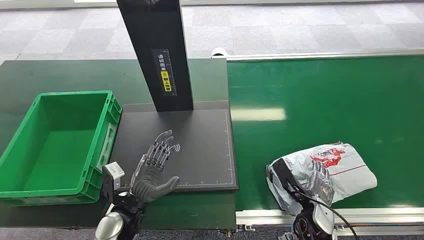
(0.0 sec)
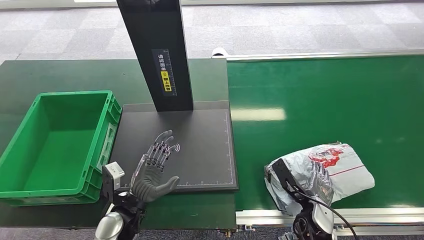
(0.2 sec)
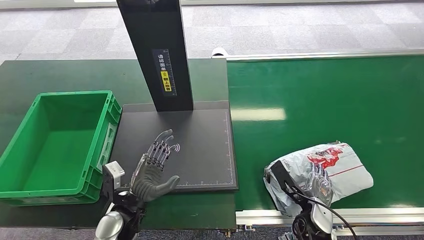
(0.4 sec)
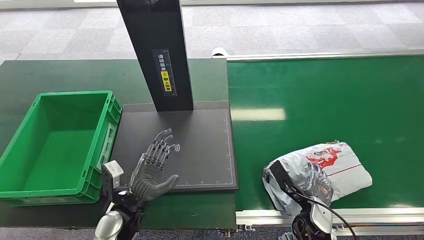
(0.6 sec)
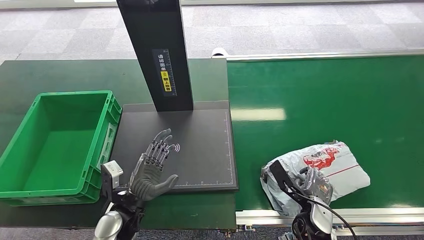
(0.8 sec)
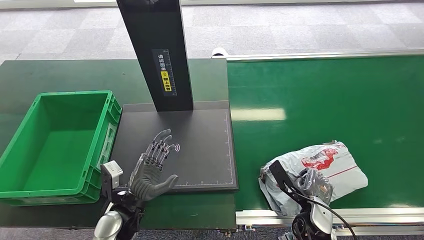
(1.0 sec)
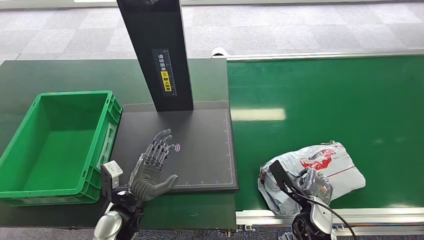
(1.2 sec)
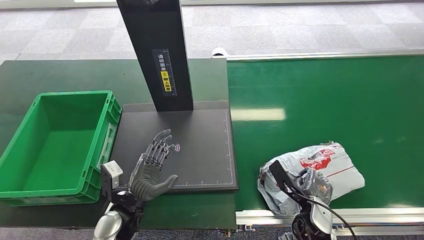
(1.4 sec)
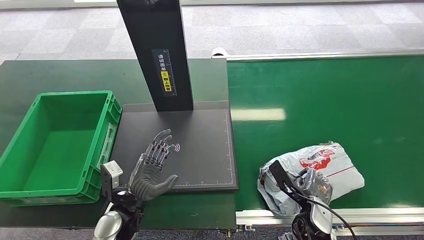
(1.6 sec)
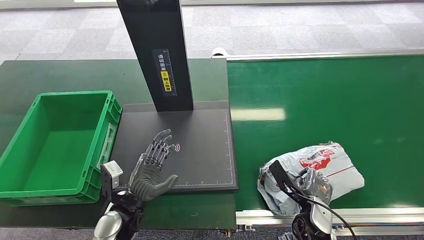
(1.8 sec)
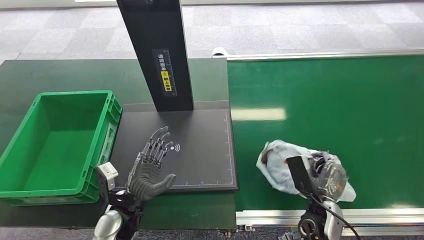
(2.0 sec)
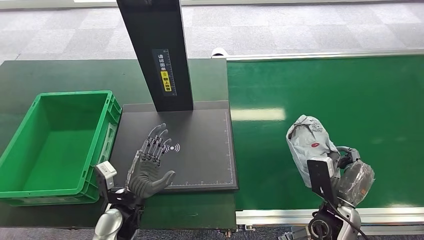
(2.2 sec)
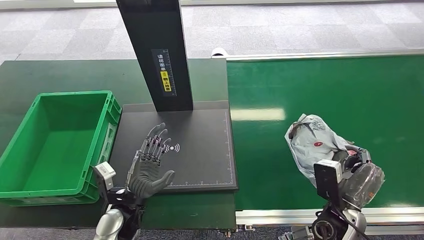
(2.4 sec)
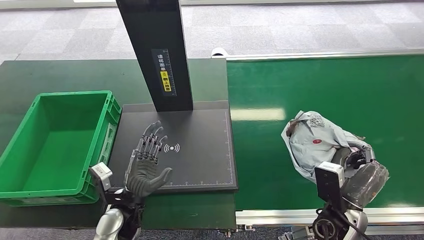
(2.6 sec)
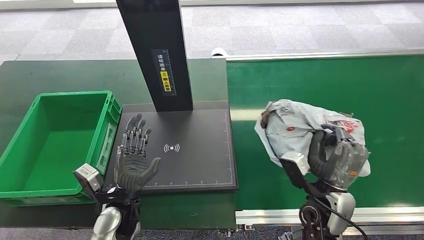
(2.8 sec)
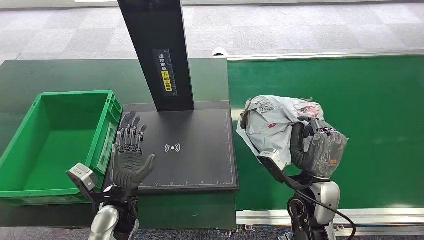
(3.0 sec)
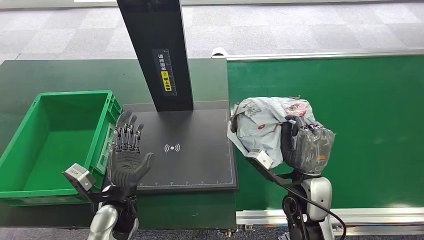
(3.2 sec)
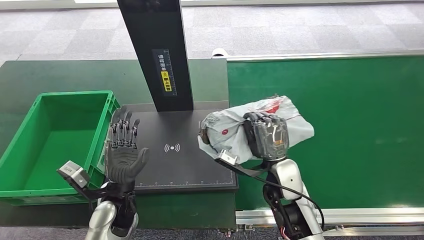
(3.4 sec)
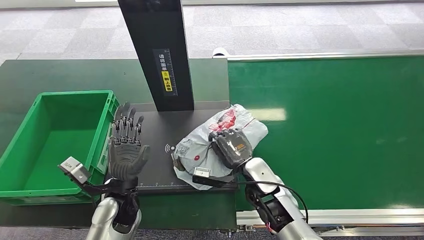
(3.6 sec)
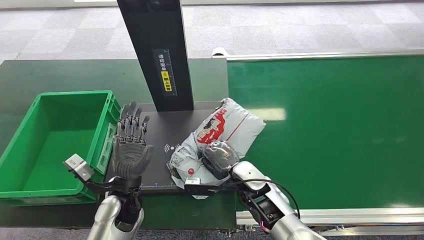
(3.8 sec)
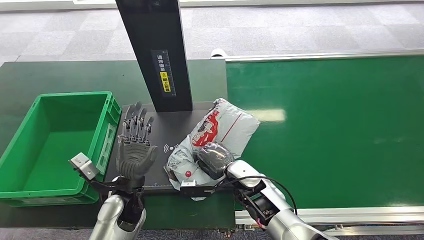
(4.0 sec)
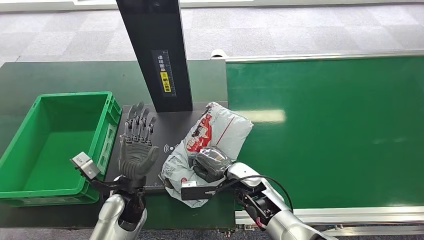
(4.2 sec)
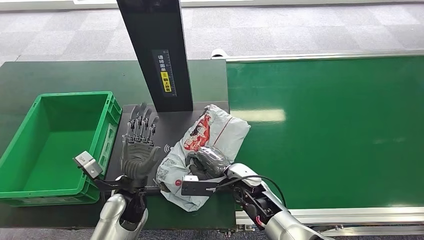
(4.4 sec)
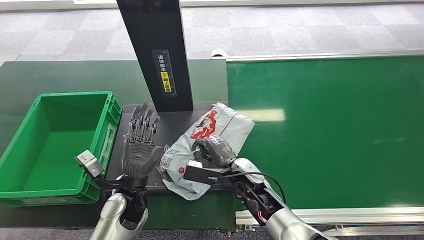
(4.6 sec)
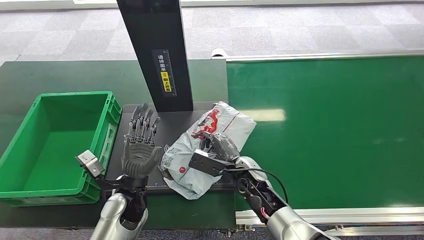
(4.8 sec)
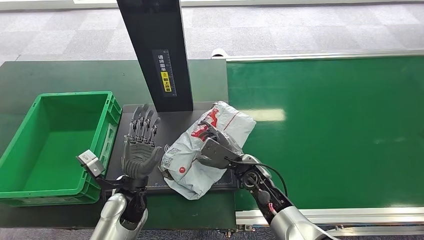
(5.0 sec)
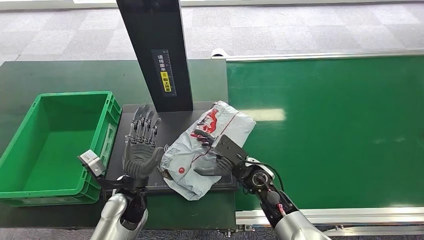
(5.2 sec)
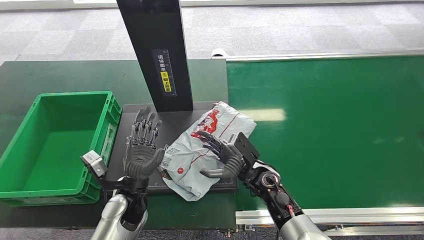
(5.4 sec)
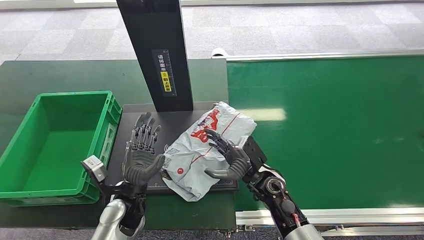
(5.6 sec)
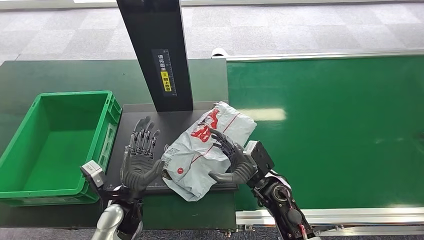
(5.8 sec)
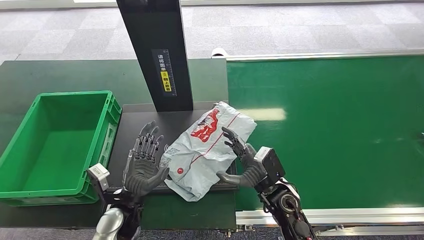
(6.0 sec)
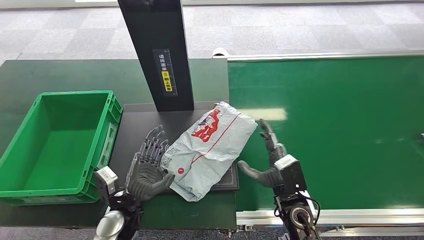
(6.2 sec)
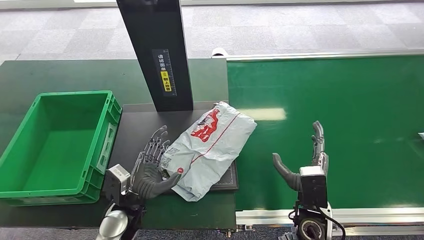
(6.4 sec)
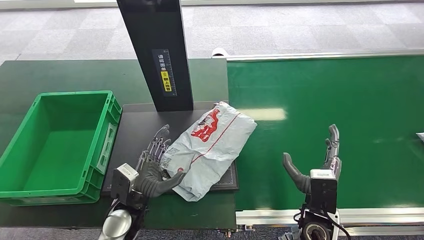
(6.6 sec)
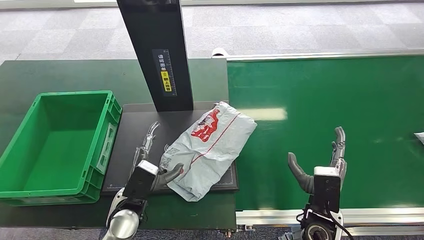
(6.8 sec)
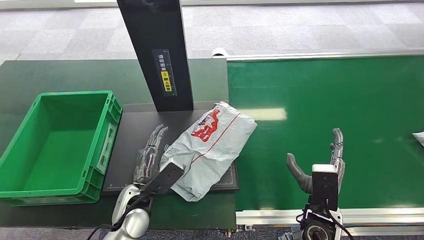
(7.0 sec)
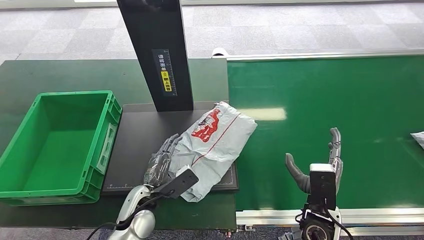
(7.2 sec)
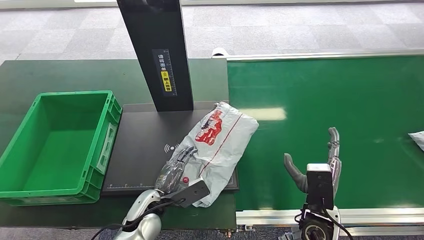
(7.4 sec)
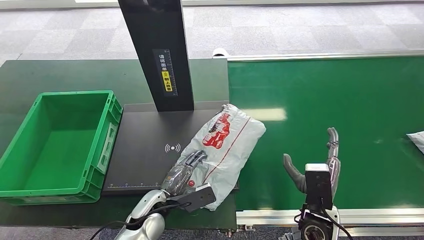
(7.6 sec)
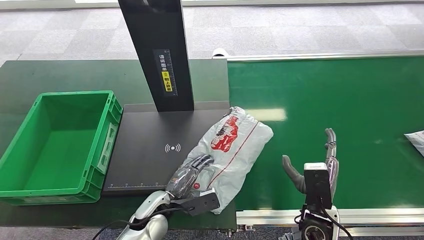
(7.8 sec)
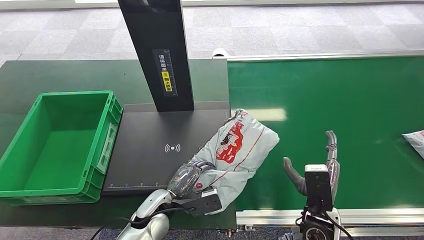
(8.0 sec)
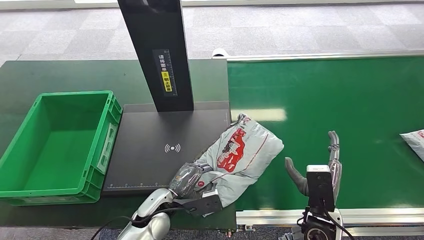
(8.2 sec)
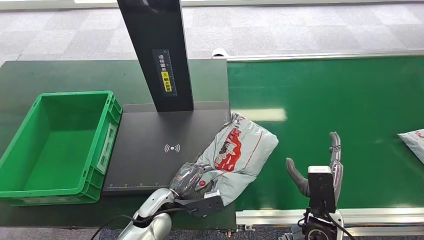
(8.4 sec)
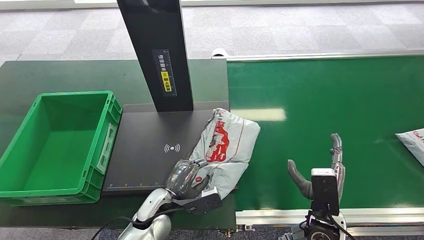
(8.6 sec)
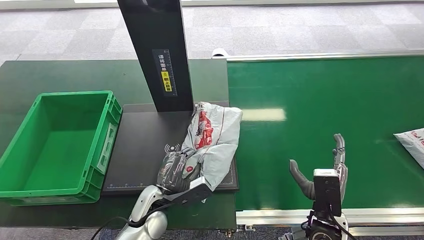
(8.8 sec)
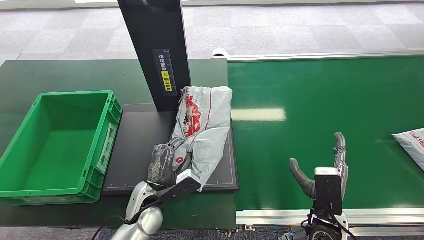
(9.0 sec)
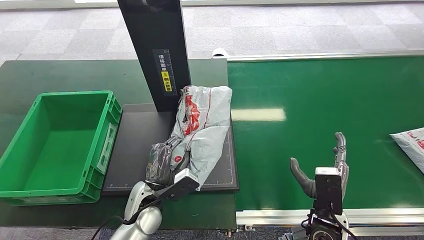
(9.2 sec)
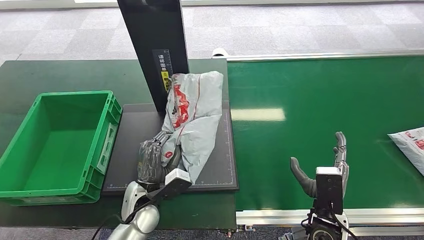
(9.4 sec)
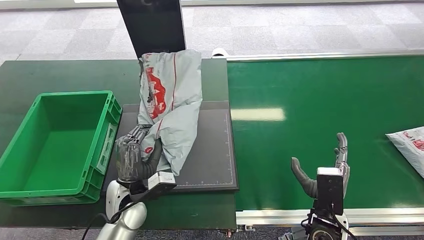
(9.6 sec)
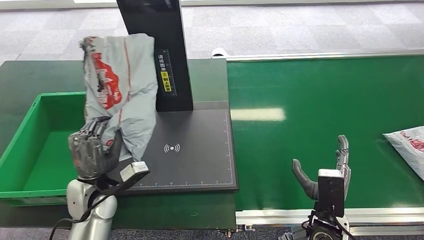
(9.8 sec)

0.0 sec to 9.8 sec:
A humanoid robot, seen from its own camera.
Step, 0.0 sec to 2.4 sec: Pick up the package from the conveyor belt.
Step, 2.6 sec to 5.2 sec: Place the package onto the inbound machine.
Step, 5.4 sec to 9.4 sec: Pick up the package from the inbound machine.
1.4 sec to 2.8 sec: The right hand moves upward, some 10 cm.
5.6 sec to 7.0 sec: The right hand travels backward and to the right by roughly 10 cm.
7.0 sec to 8.4 sec: The left hand moves about 5 cm.

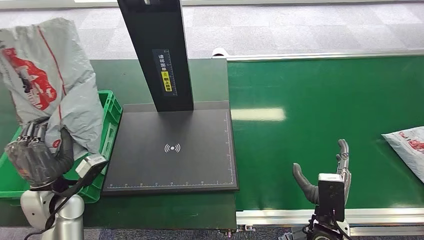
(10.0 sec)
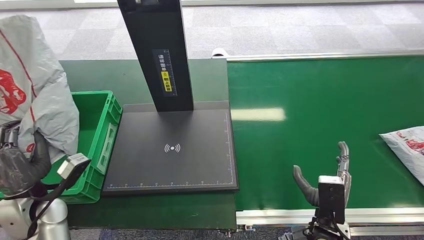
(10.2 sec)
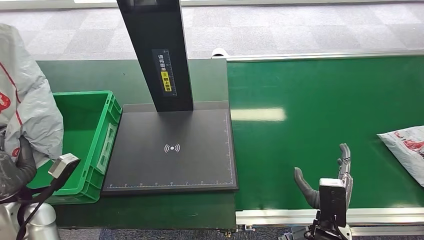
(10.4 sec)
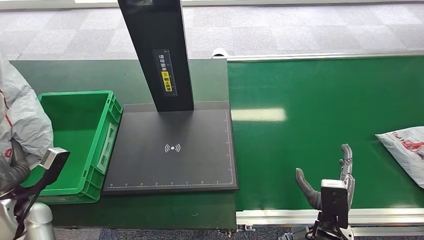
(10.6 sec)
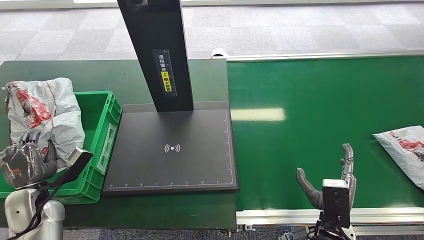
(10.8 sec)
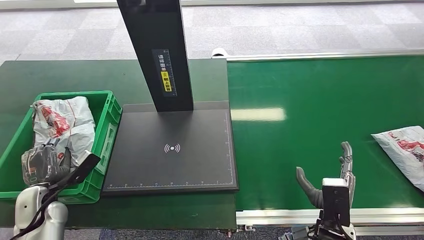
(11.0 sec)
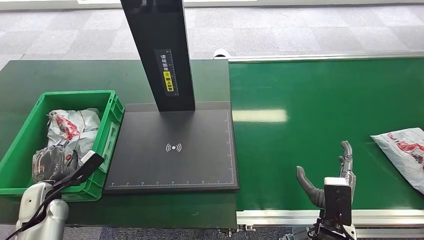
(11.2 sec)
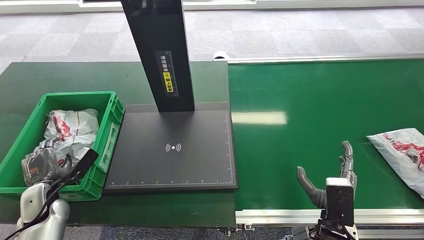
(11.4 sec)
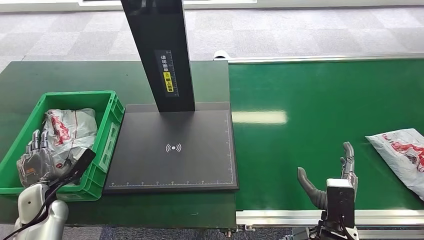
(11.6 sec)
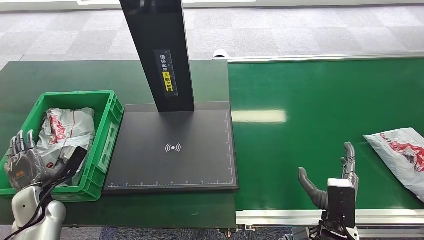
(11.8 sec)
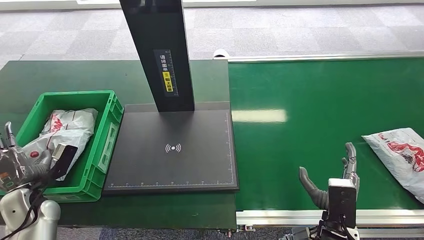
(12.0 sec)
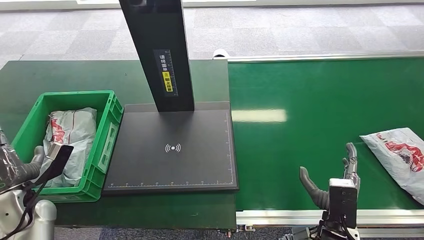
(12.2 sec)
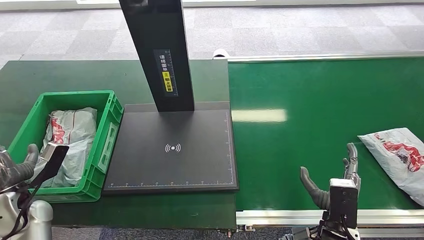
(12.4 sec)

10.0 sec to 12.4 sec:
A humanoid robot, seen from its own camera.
Step, 10.0 sec to 12.4 sec: Place the package into the parcel locker.
11.2 sec to 12.4 sec: The left hand is displaced upward by some 5 cm.

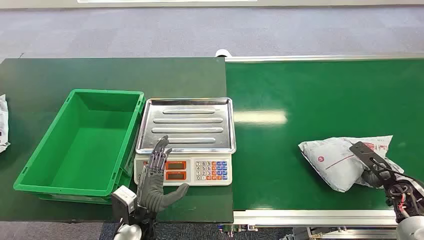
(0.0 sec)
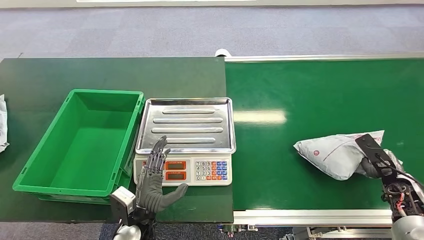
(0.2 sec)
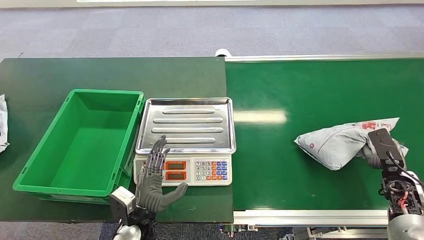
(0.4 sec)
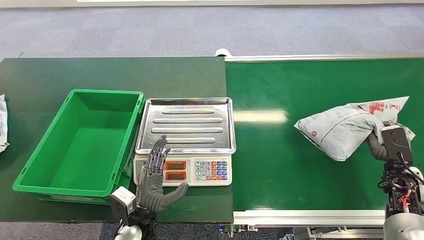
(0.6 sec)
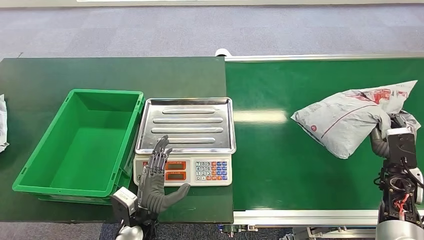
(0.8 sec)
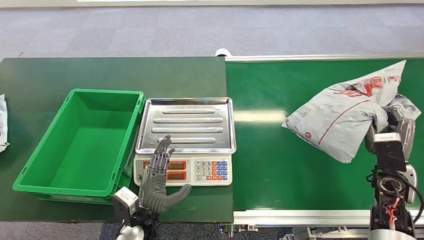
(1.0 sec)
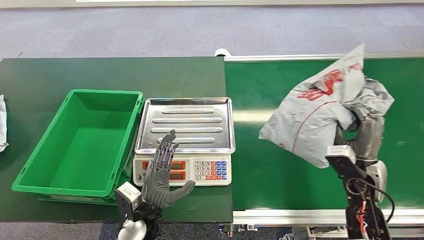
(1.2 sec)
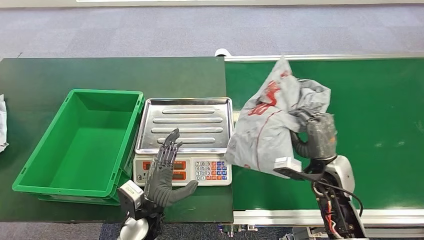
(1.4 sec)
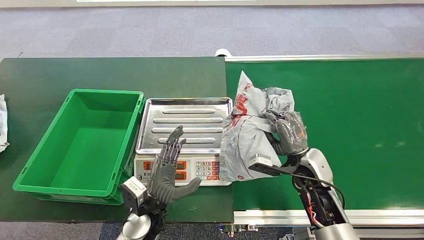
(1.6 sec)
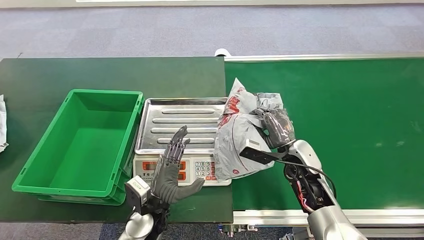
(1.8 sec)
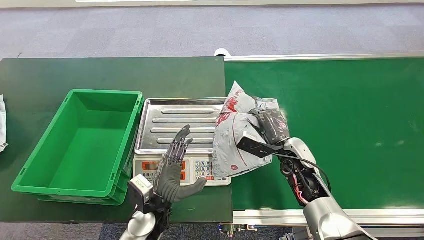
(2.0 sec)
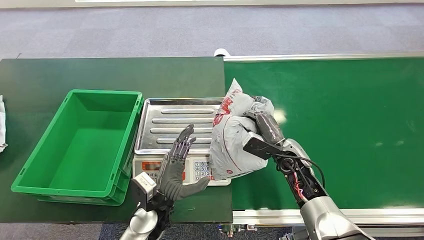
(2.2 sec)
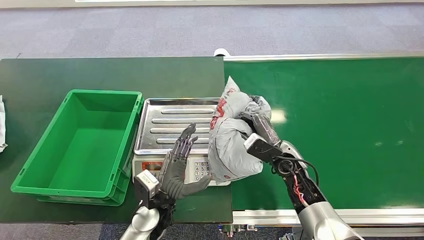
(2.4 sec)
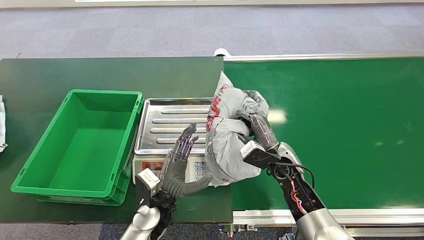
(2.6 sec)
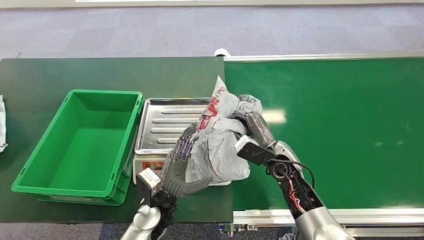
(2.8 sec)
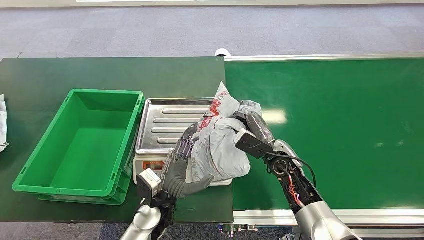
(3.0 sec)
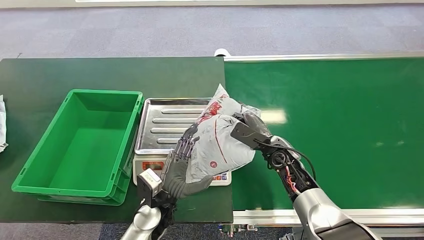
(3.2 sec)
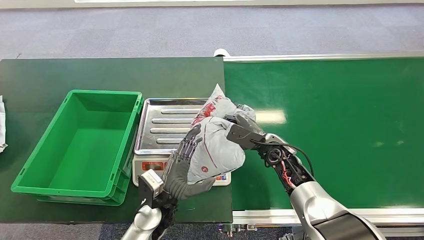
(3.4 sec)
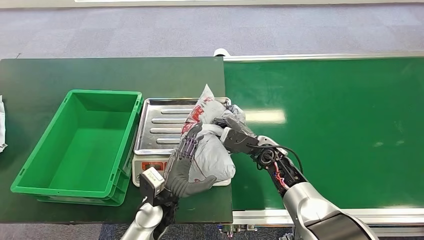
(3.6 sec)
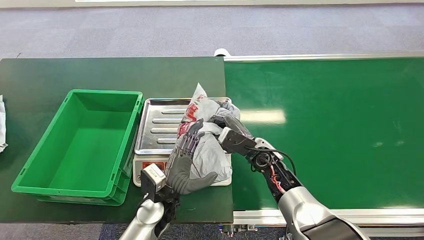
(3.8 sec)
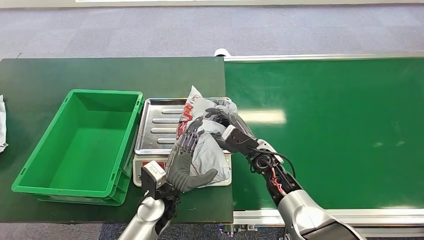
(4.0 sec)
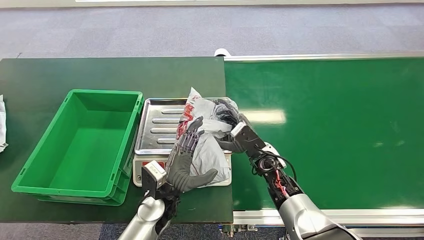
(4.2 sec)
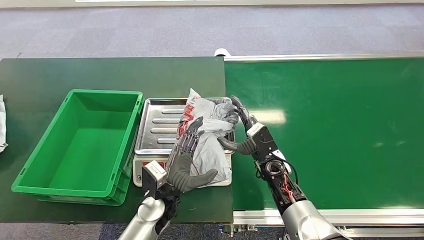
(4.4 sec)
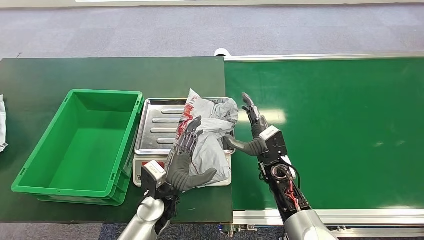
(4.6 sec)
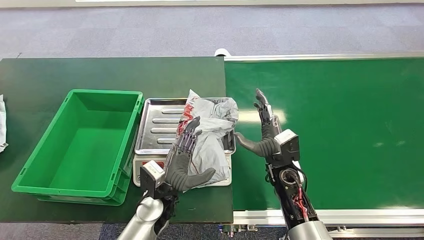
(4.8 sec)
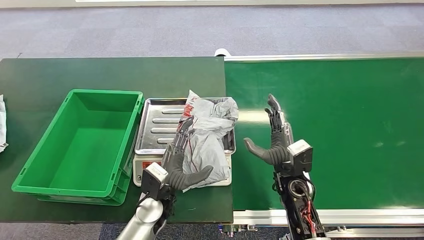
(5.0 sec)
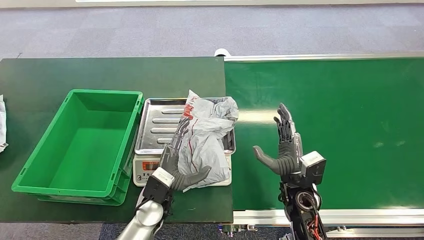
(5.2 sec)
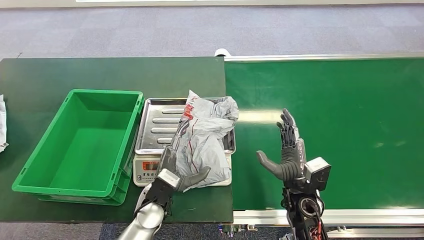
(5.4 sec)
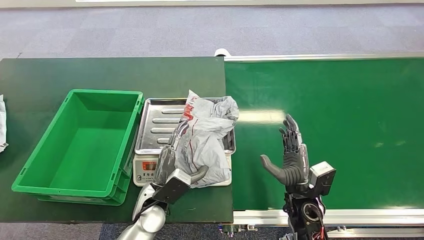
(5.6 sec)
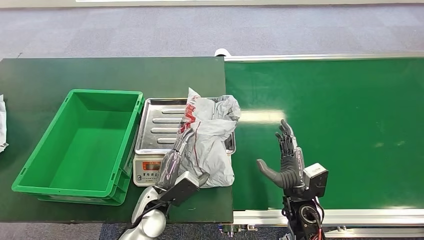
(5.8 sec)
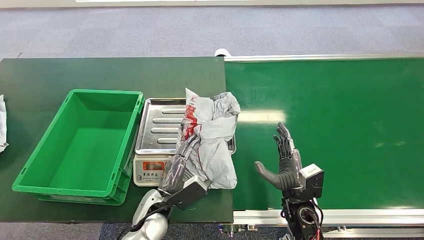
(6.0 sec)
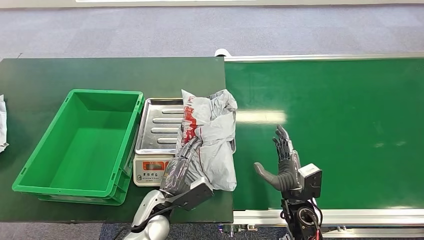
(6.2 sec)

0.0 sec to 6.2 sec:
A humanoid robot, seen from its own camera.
Step, 0.0 sec to 1.0 sec: Pick up the package from the conveyor belt.
Step, 2.0 sec to 4.4 sec: Place the package onto the inbound machine.
1.6 sec to 3.2 sec: The right hand is displaced to the left by approximately 5 cm.
4.6 sec to 6.2 sec: The right hand goes roughly 10 cm backward.
